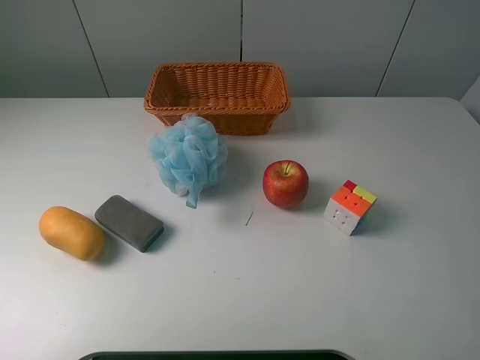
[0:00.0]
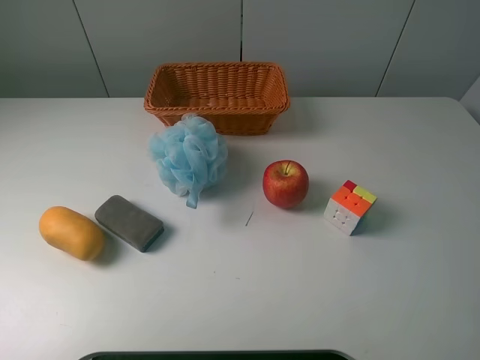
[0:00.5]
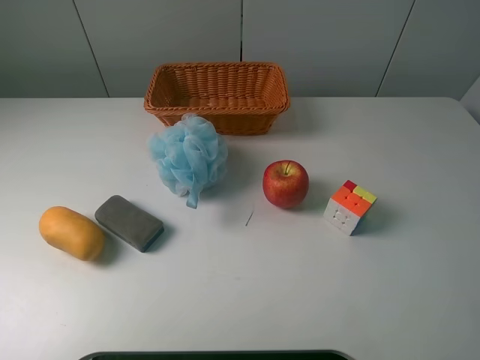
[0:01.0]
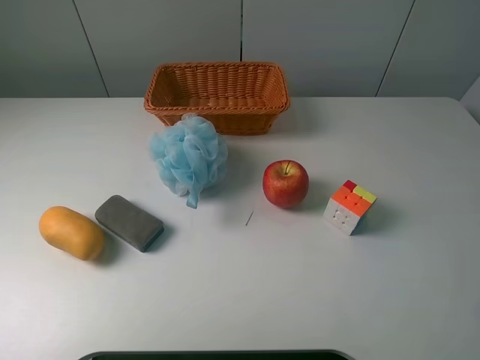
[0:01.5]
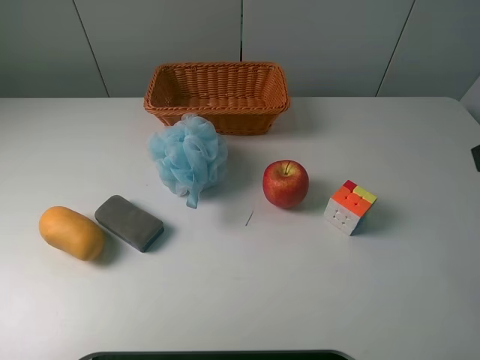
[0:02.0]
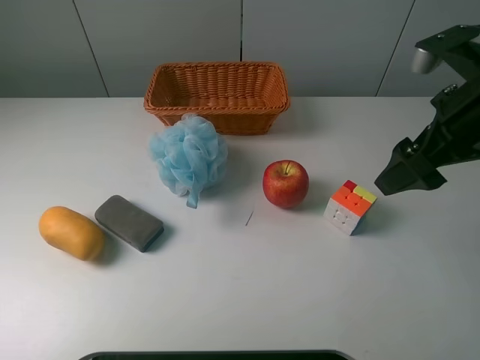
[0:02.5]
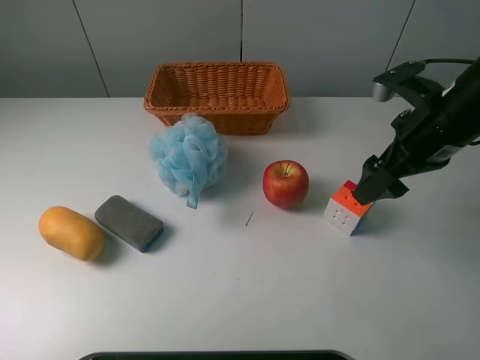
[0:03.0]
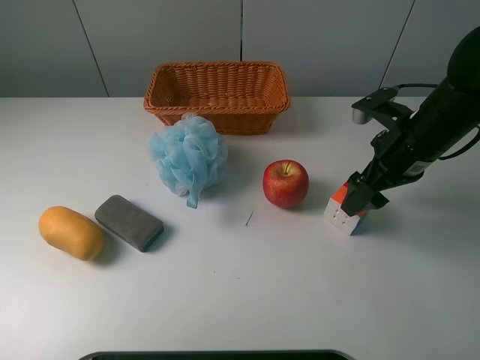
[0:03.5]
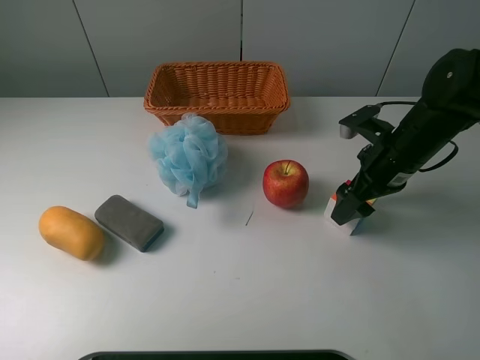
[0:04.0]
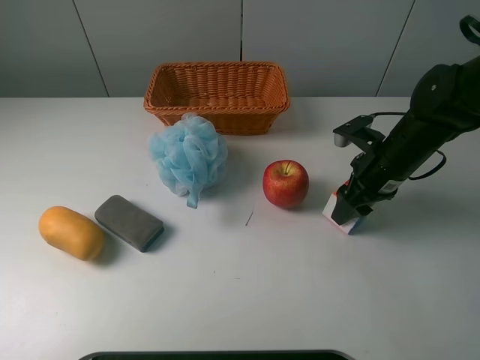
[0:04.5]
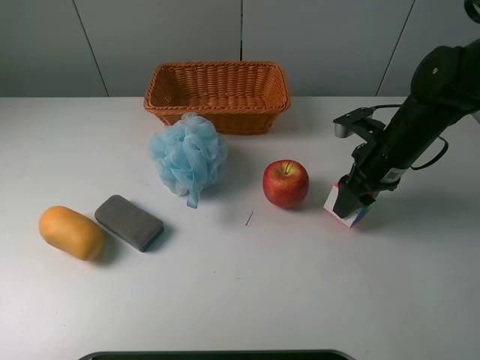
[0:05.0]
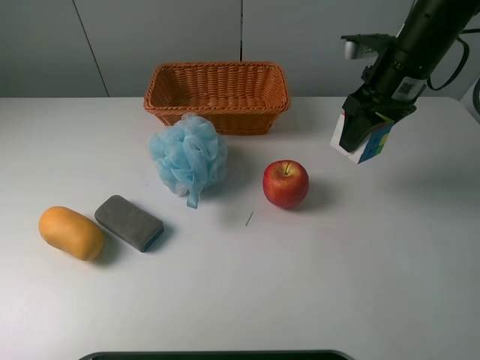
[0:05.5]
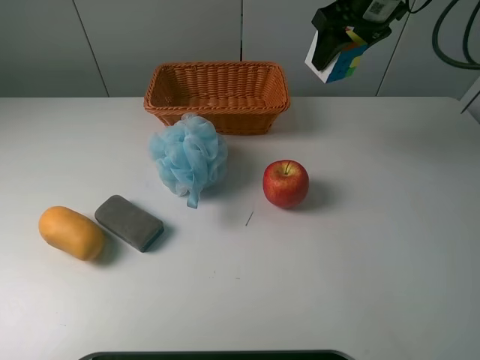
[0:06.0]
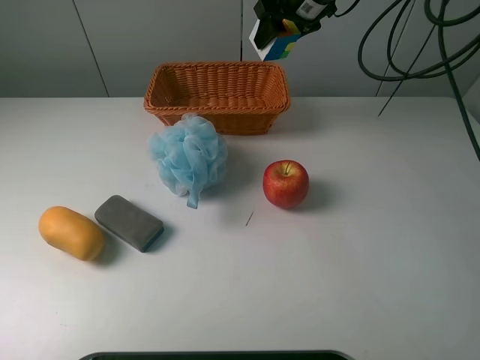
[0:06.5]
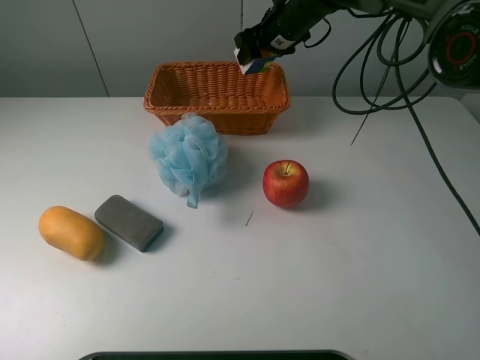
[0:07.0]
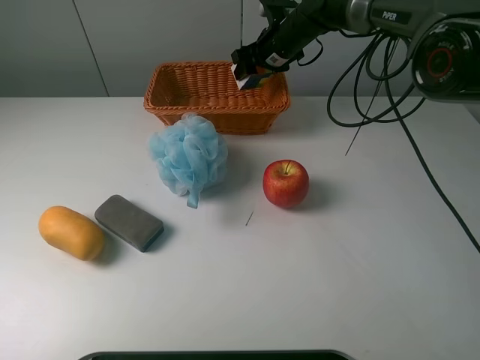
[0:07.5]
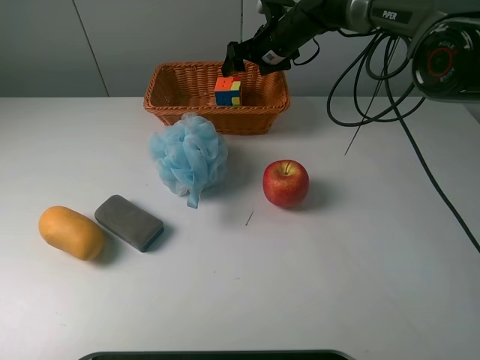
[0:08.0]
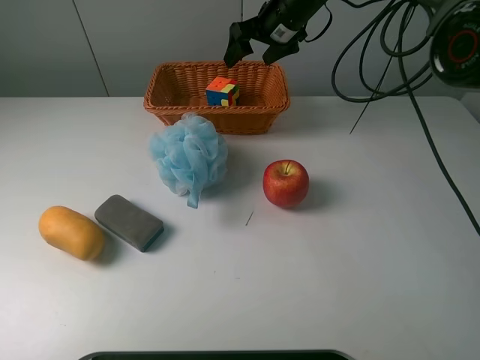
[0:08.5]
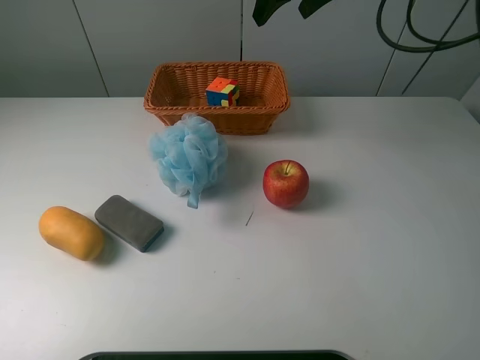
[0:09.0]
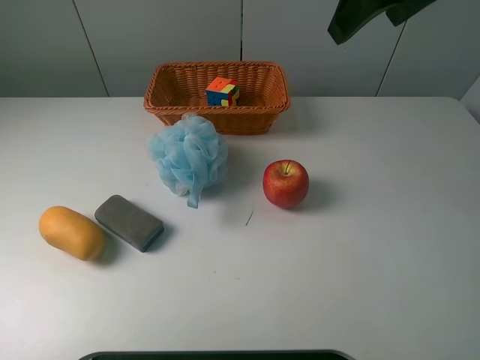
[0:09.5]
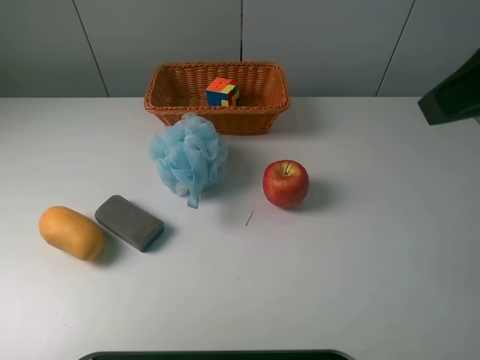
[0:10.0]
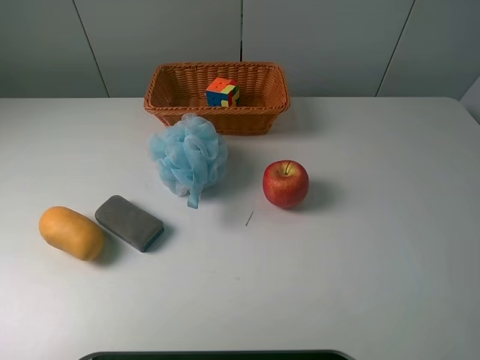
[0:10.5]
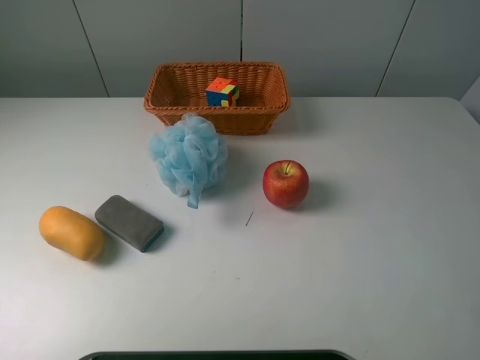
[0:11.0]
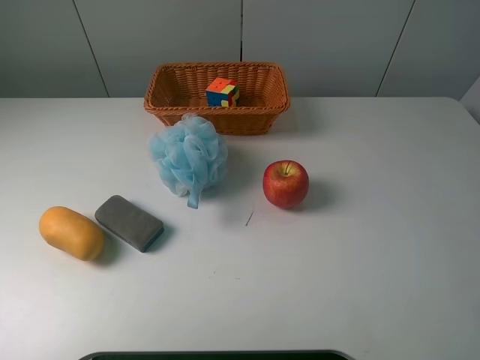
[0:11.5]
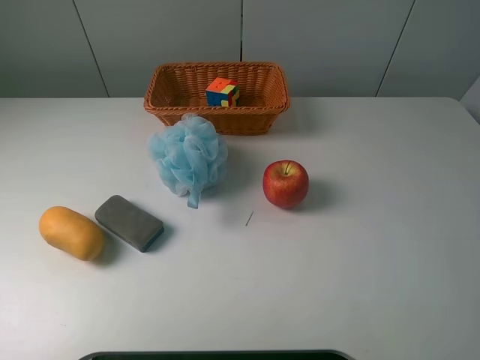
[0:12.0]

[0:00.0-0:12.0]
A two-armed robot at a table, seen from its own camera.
Task of the whole recording: use a picker to grab the item closest to the apple and place it in the basket.
Step, 0:00.0 to 0:04.5: Grasp the Rubik's Cube with the right gripper.
Step, 0:05.0 to 0:08.0: Place the Rubik's Cube into the basket with the right gripper.
0:02.0 to 0:04.0: The right gripper heads downward and forward, covering roughly 25 cm.
0:04.0 to 0:06.0: The right gripper shifts some 20 cm upward and forward, and closes its fingers.
0:06.0 to 0:08.0: The right gripper goes some 20 cm downward, forward and to the left, and opens its fingers.
0:08.0 to 0:10.0: The right gripper shifts about 40 cm backward and upward.
0:10.0 to 0:12.0: The right gripper is displaced backward and downward by roughly 15 cm.

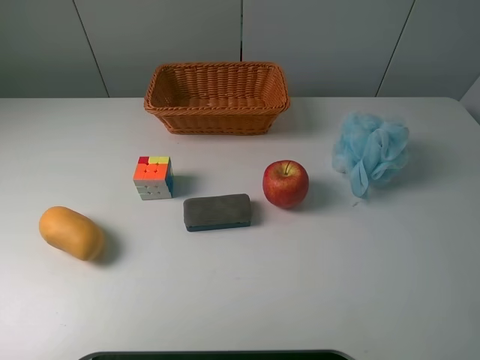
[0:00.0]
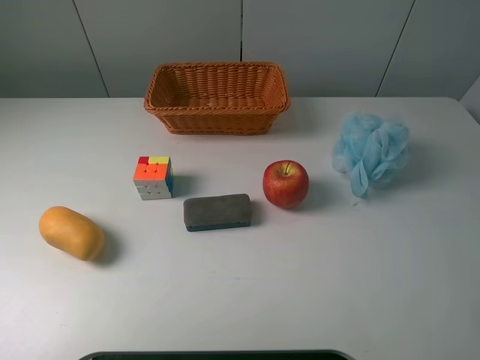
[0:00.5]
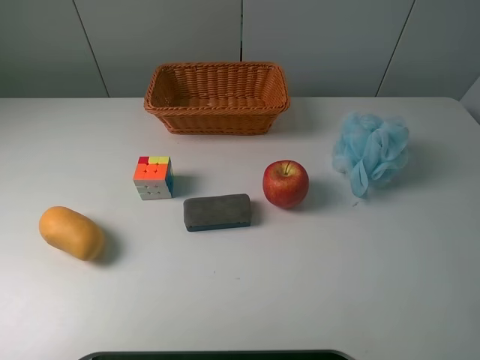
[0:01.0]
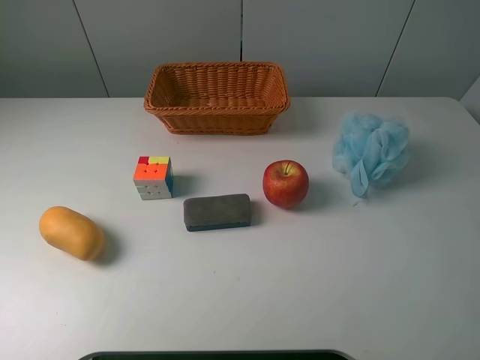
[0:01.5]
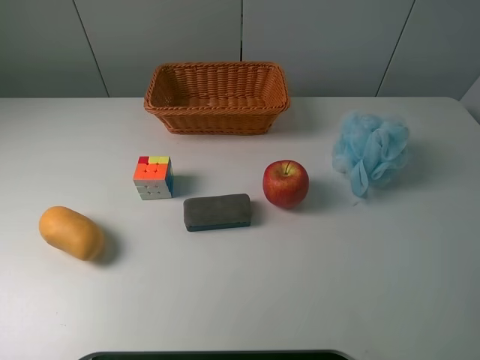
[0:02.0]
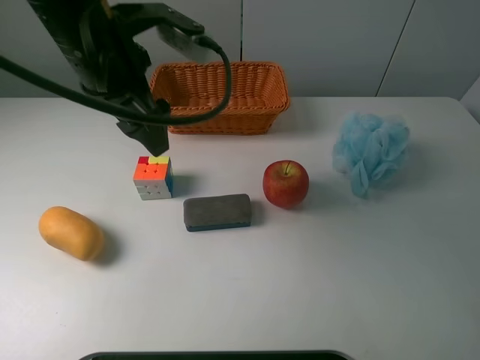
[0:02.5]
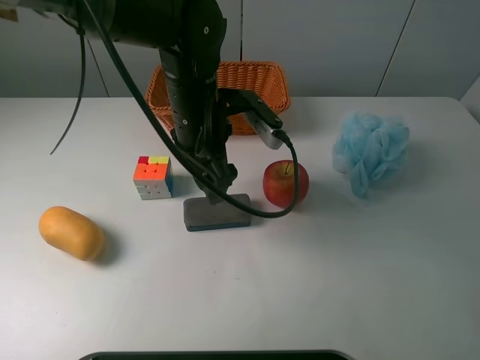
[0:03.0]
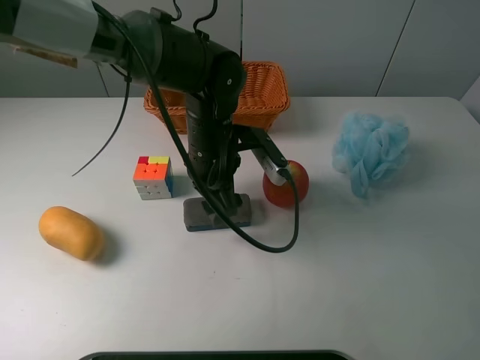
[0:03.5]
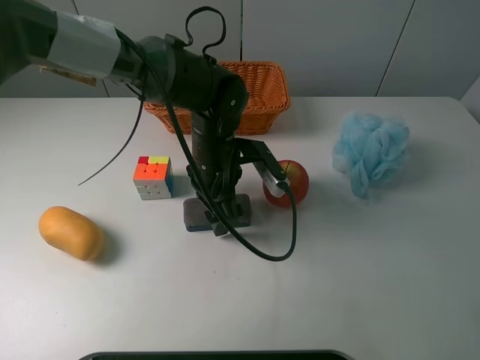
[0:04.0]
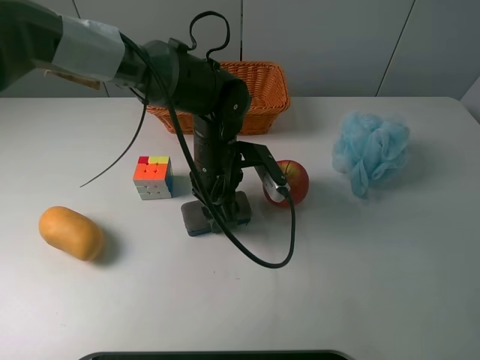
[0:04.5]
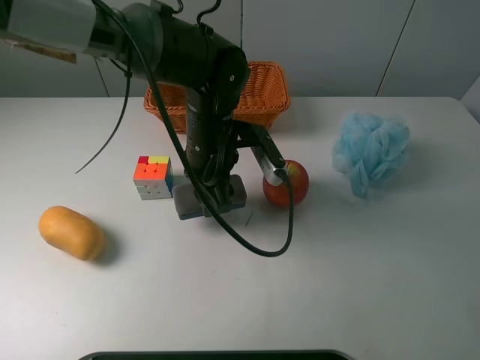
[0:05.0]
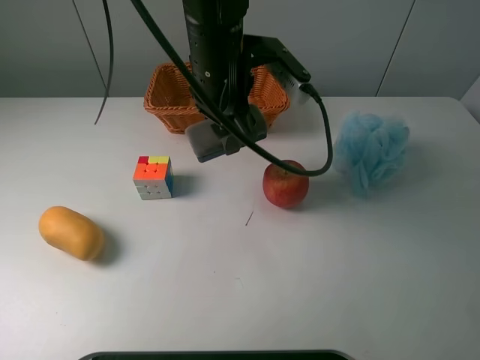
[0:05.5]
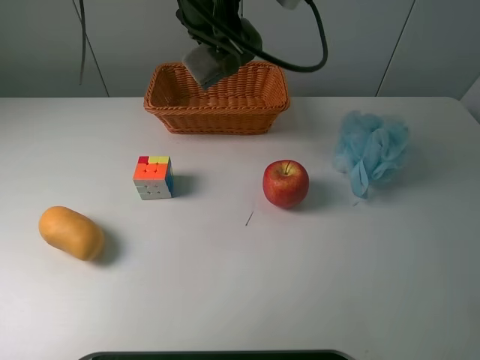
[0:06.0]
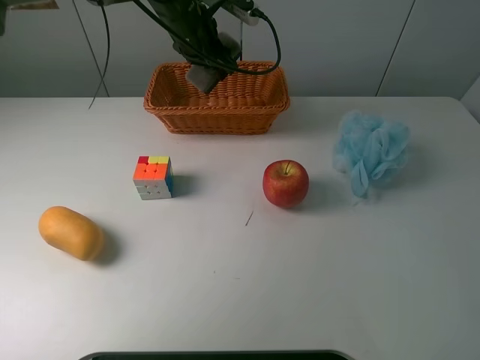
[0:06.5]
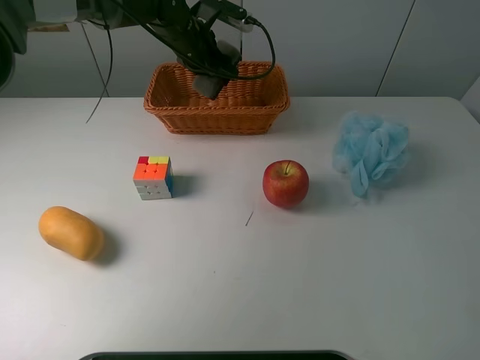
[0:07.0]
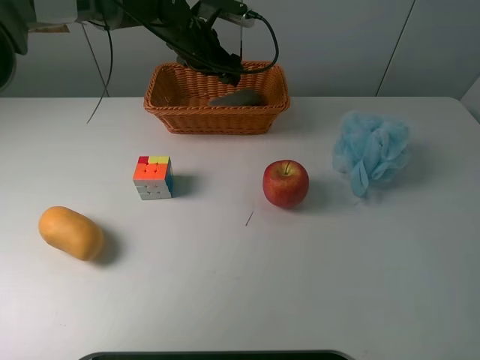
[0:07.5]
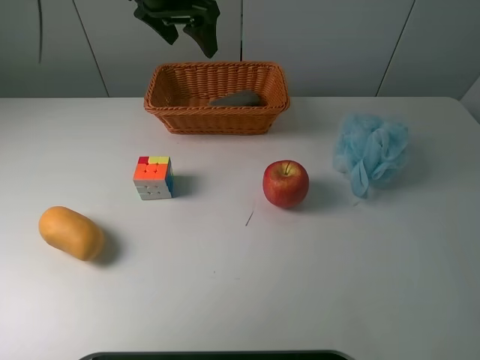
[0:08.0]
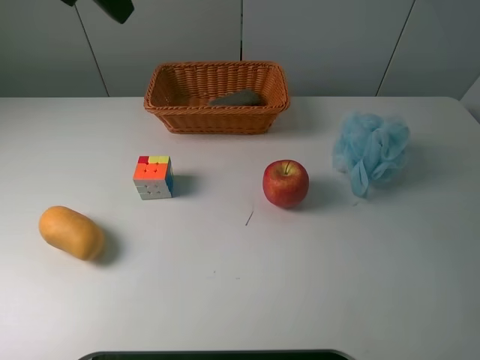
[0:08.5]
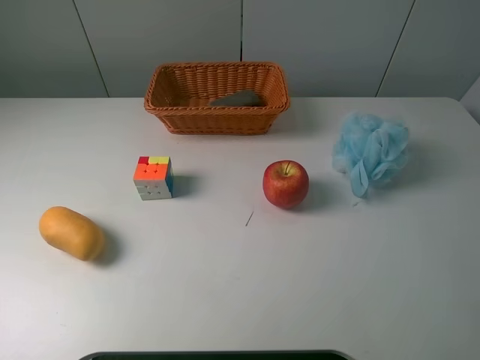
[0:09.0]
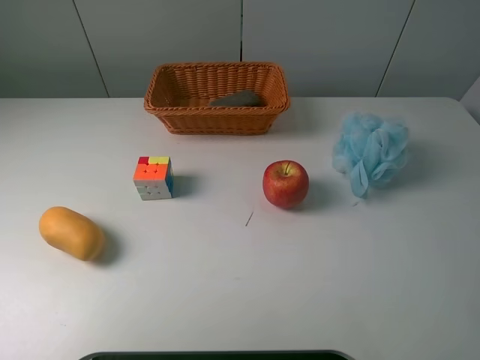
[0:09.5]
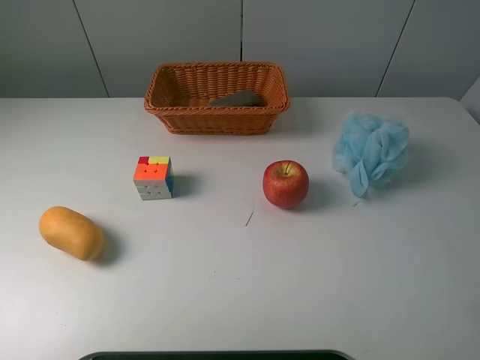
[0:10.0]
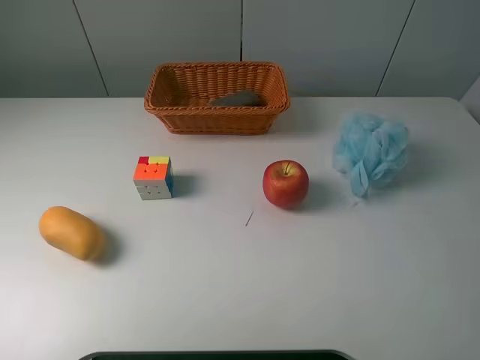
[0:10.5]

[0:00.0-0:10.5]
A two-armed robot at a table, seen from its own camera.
Task of the whole recording: use a picker to grab the item closest to the apple and place it in the basket.
Step, 0:00.0 to 0:04.5: Grasp the chalkboard eraser with the left gripper.
Step, 0:05.0 to 0:07.5: Place the chalkboard eraser into the basket with the left gripper.
0:02.0 to 0:04.0: The left gripper shifts roughly 40 cm downward, to the right and forward.
0:04.0 to 0:06.5: The left gripper travels forward and upward by some 20 cm, and closes its fingers.
0:06.5 to 0:08.5: The left gripper moves backward, upward and to the left, roughly 30 cm, and opens up.
